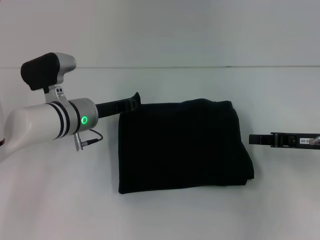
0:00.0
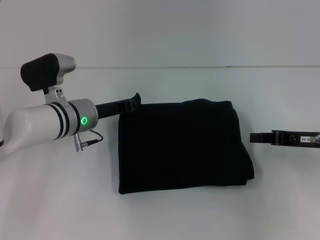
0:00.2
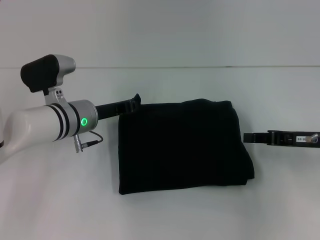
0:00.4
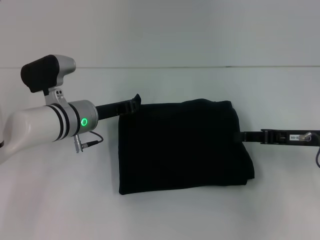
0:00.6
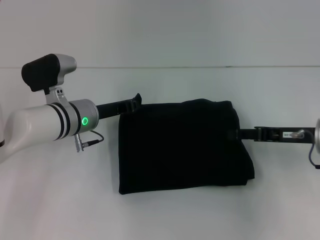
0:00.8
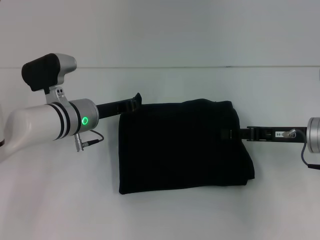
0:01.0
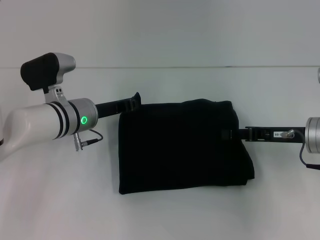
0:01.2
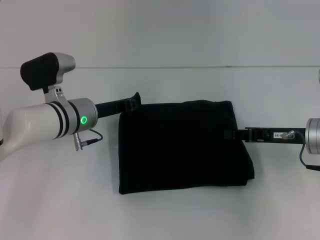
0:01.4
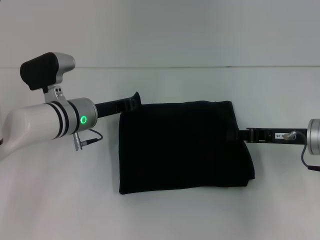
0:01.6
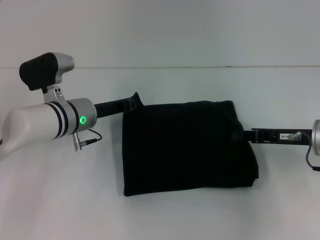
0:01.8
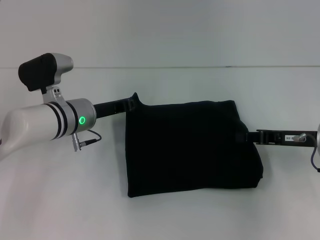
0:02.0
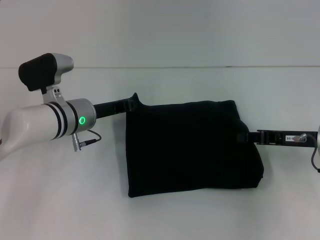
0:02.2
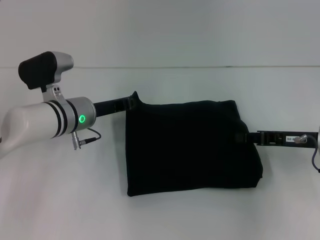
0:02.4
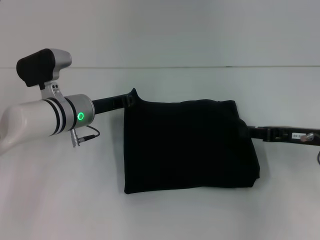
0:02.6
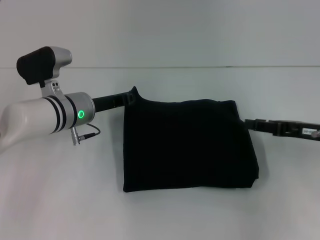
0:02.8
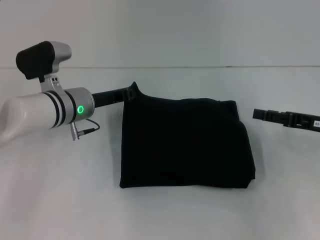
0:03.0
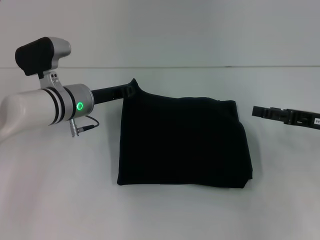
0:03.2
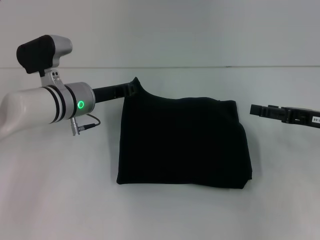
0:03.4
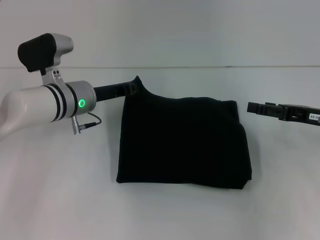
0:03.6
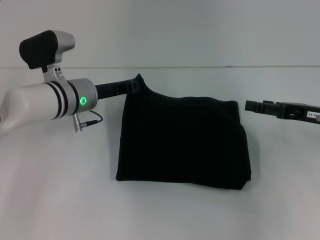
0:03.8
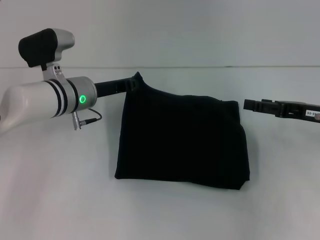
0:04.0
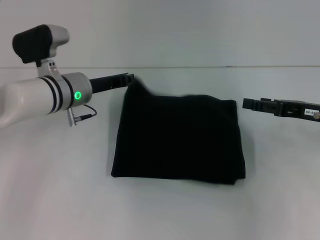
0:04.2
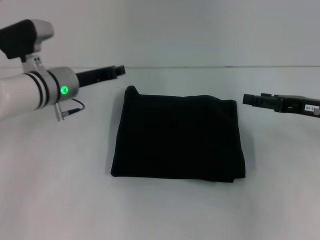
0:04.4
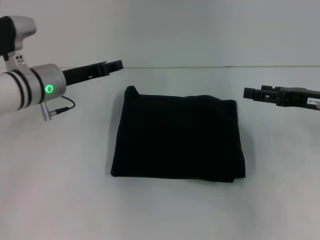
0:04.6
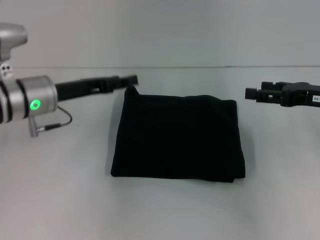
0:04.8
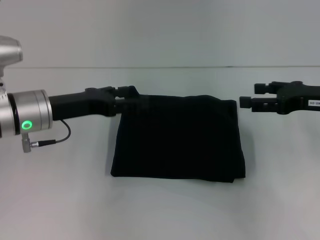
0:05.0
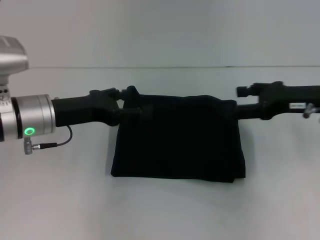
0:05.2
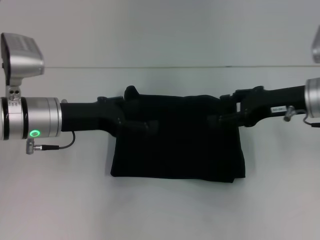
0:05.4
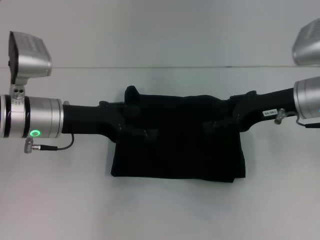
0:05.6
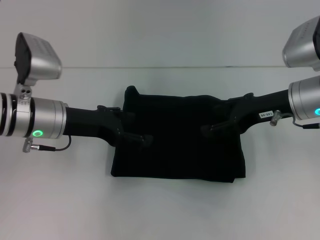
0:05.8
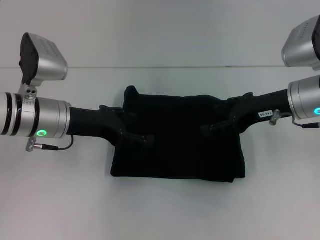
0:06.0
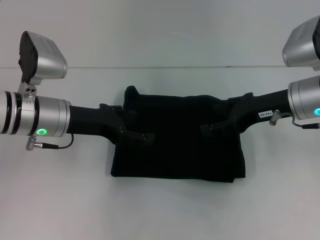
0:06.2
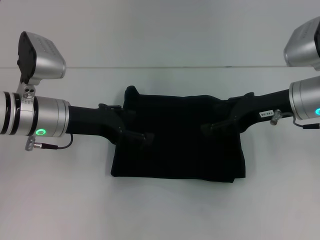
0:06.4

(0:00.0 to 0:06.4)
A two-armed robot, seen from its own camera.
0:00.0 - 0:01.6: The grippers stay close to where they were, moving slightly.
0:01.6 - 0:03.2: The right gripper heads to the right, covering some 5 cm, and opens.
0:03.2 - 0:04.8: The left gripper shifts by about 5 cm, and opens its fingers.
0:04.8 - 0:06.4: The right gripper moves to the left, about 10 cm; the left gripper opens its fingers.
